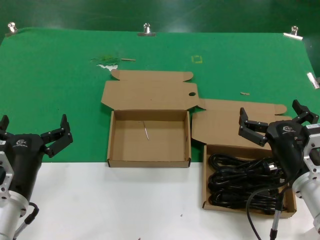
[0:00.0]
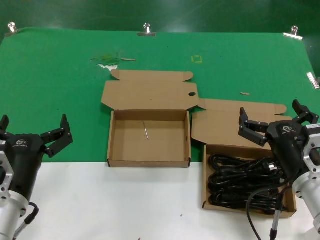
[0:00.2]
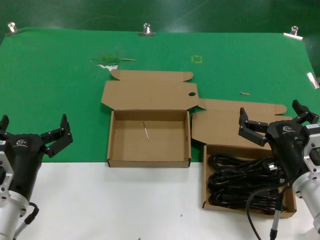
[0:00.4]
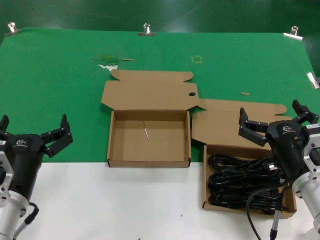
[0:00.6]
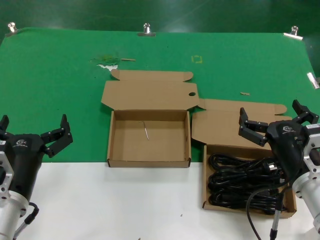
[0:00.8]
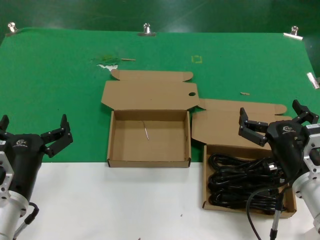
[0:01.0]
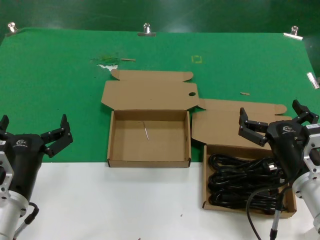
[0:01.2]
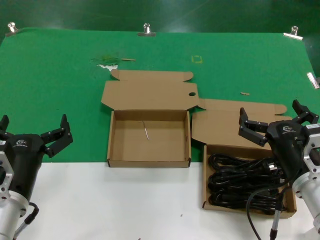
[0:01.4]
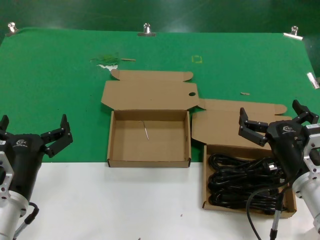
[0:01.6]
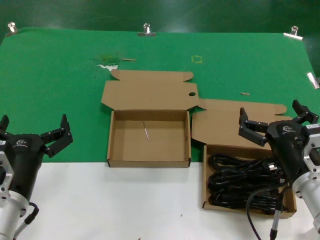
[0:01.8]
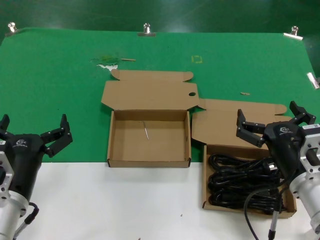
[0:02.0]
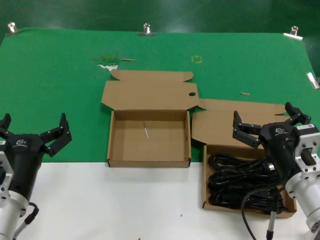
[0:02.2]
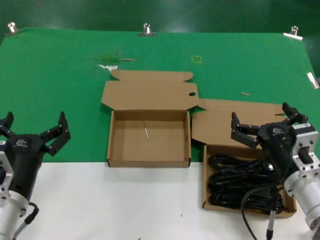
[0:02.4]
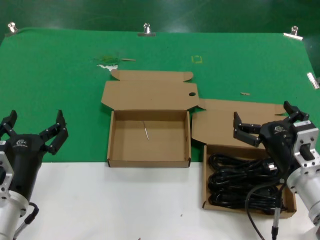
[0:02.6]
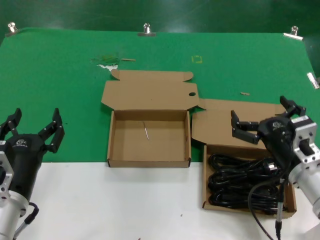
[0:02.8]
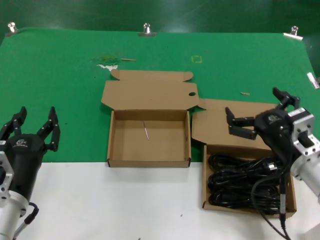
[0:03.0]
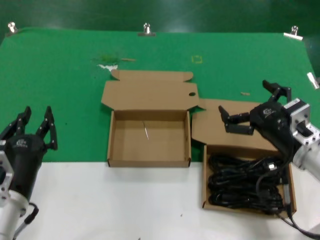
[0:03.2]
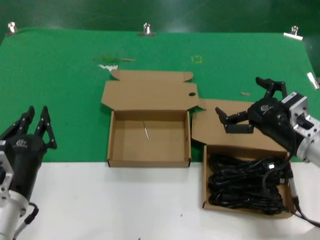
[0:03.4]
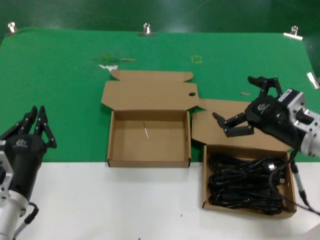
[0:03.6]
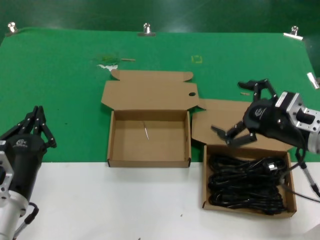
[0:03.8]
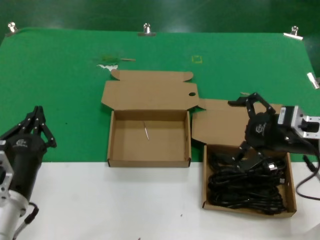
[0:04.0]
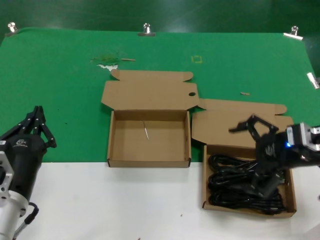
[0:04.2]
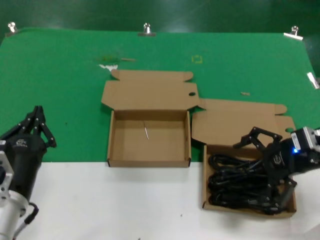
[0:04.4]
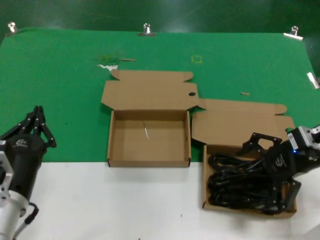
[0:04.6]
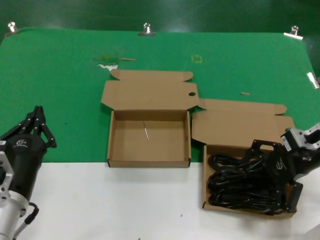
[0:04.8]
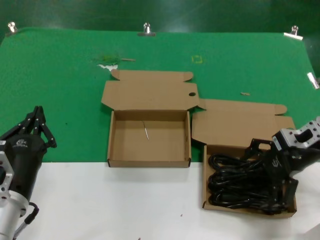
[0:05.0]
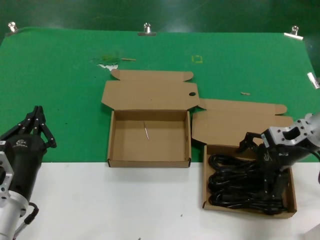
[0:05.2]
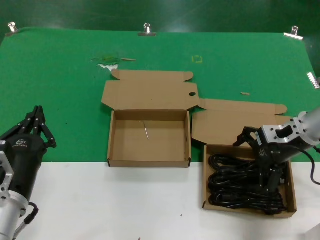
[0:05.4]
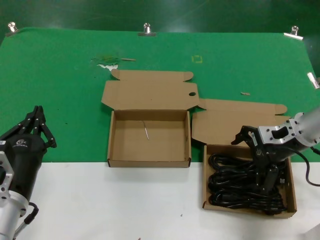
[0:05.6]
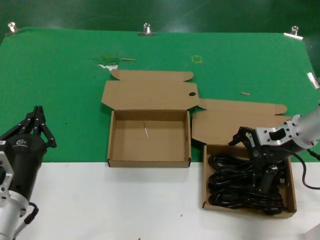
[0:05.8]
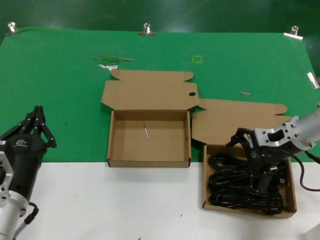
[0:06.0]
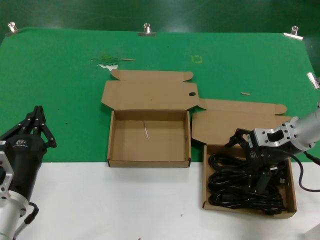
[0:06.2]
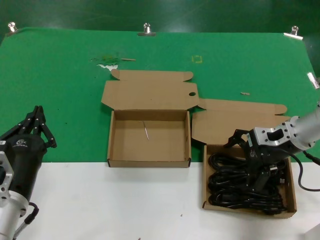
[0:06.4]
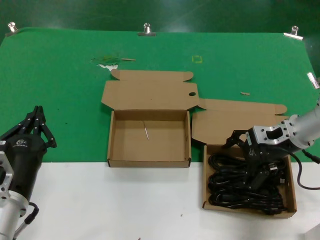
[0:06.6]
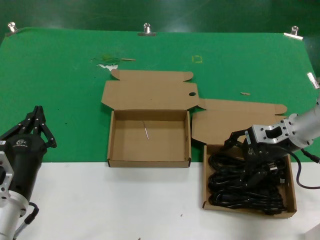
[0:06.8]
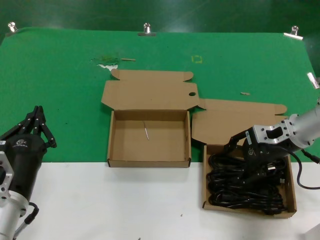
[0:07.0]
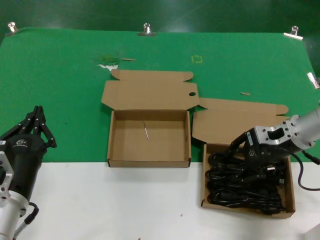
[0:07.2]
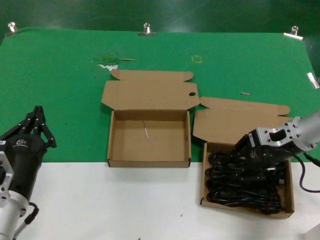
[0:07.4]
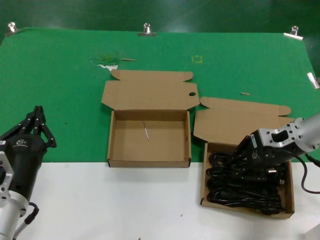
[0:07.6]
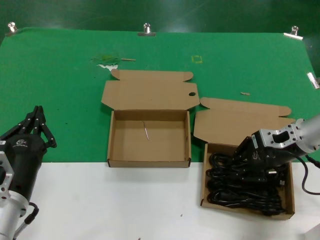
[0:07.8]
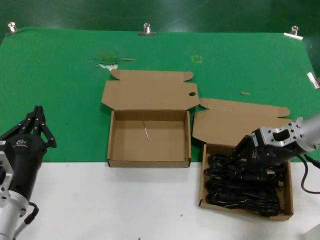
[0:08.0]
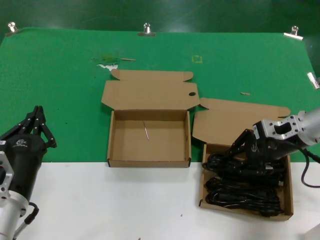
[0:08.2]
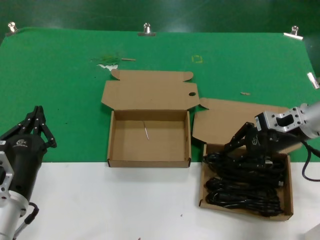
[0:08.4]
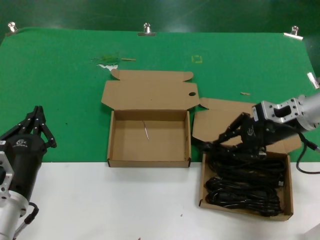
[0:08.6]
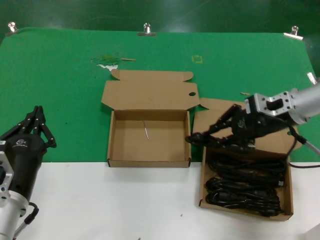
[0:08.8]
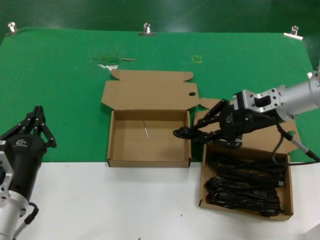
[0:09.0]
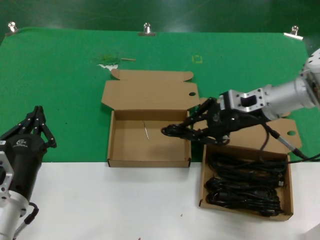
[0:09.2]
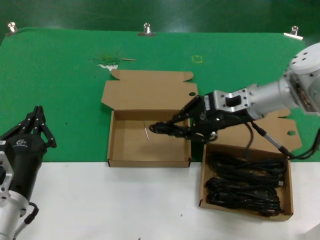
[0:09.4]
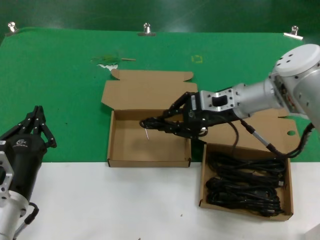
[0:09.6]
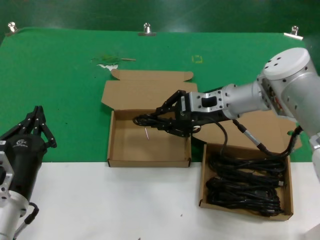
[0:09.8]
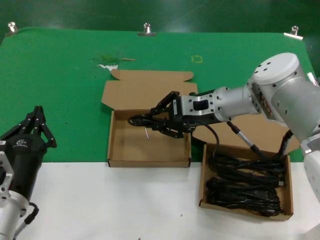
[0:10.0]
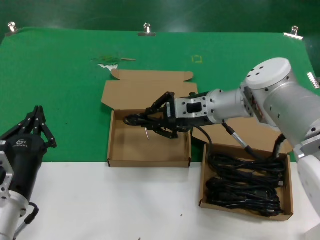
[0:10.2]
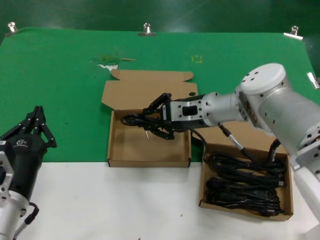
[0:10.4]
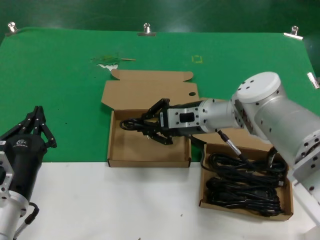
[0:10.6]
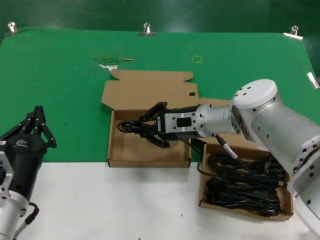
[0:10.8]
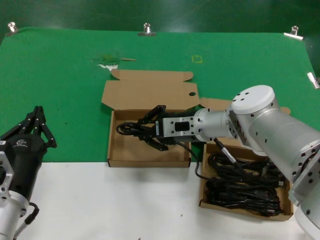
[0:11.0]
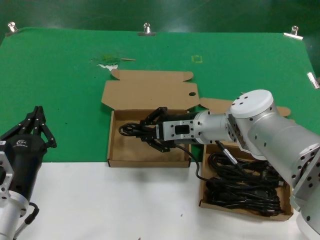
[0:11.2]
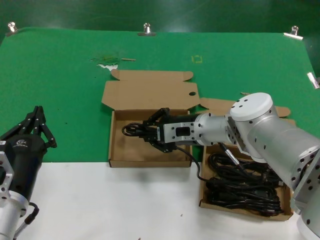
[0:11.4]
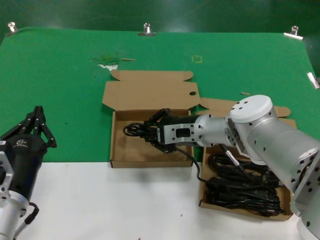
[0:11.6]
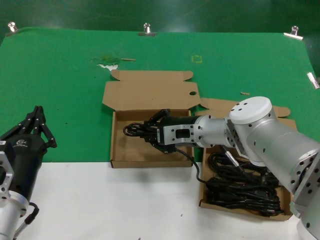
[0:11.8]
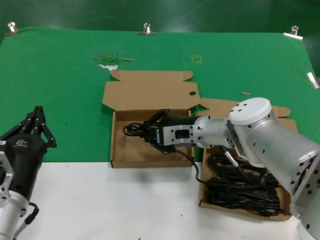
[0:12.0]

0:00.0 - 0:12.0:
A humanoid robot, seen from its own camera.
Task of the whole recording: take the parts from the box containing them and put them into an empty box.
Step, 0:00.0 - 0:07.6: Grasp the data cable.
0:00.0 - 0:01.6: Both hands stay about where they are.
0:01.6 - 0:03.0: The hands stay close to where they were, moving slightly.
0:03.0 - 0:04.4: The right hand is displaced upward, to the right and forward by about 15 cm.
0:04.4 - 0:06.0: The right hand heads forward, covering approximately 10 cm.
0:06.0 - 0:07.6: Both hands stay put.
0:07.6 - 0:09.0: The right hand goes approximately 5 cm upward.
0:09.0 - 0:10.4: The right hand travels to the left by about 15 cm.
0:10.4 - 0:12.0: The right hand shifts roughly 5 cm downward.

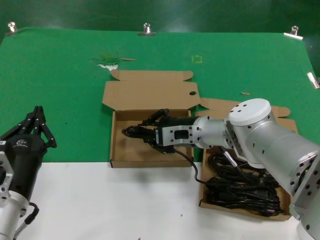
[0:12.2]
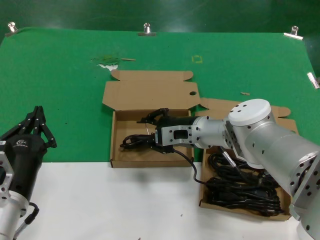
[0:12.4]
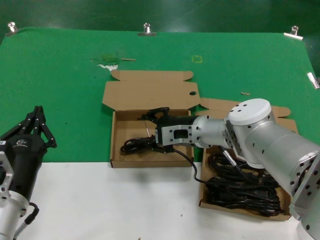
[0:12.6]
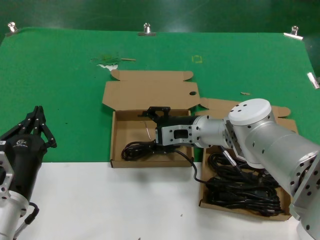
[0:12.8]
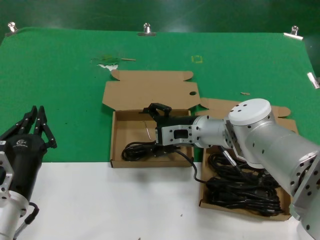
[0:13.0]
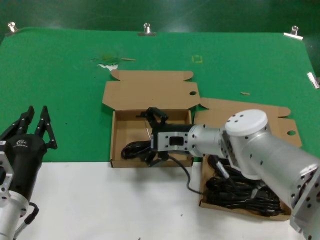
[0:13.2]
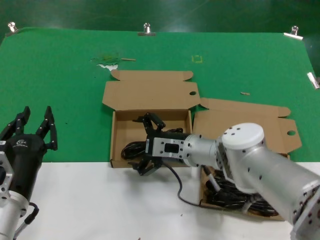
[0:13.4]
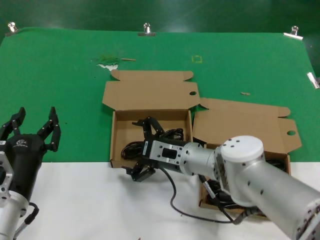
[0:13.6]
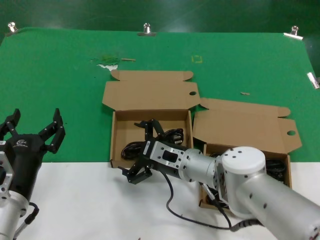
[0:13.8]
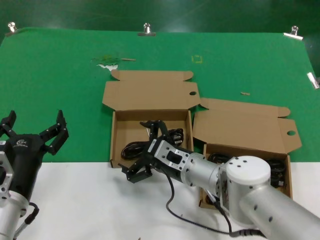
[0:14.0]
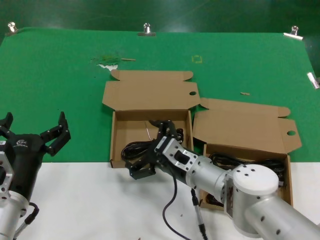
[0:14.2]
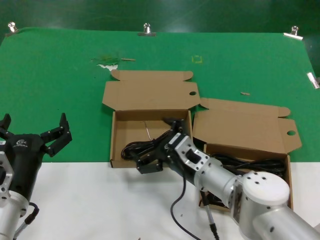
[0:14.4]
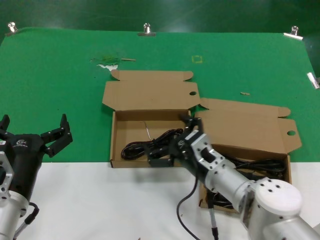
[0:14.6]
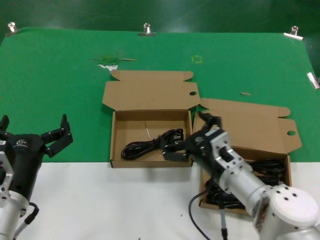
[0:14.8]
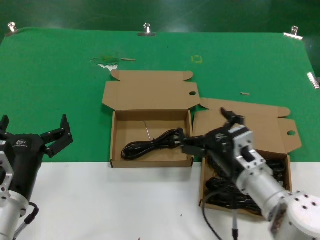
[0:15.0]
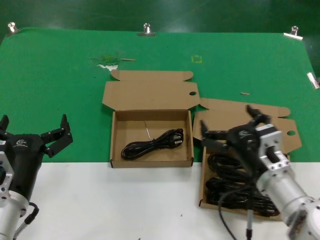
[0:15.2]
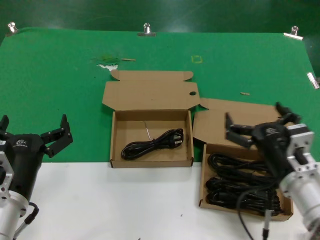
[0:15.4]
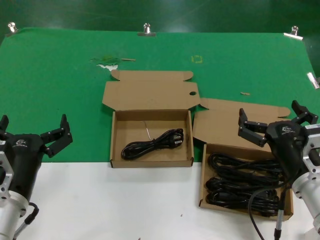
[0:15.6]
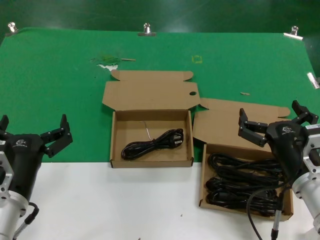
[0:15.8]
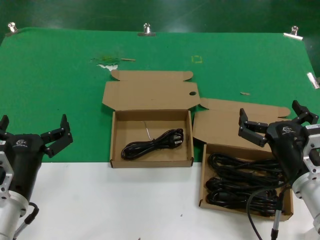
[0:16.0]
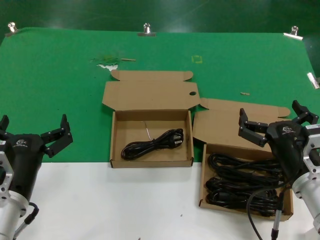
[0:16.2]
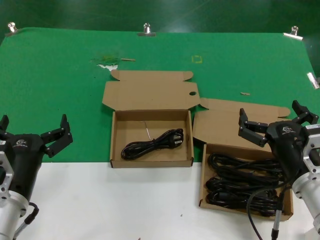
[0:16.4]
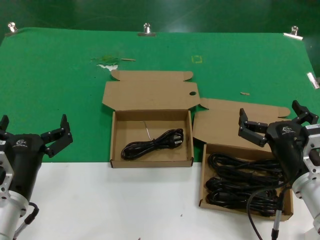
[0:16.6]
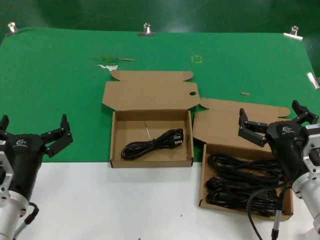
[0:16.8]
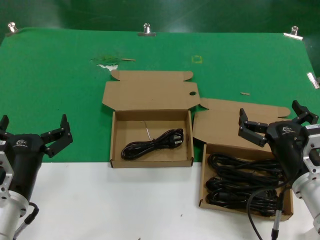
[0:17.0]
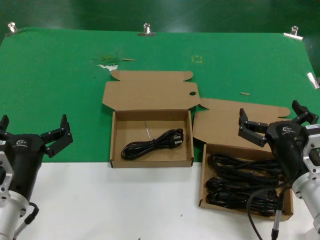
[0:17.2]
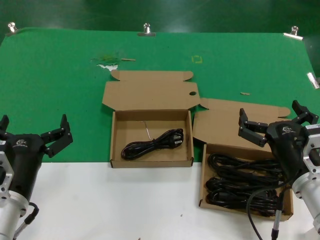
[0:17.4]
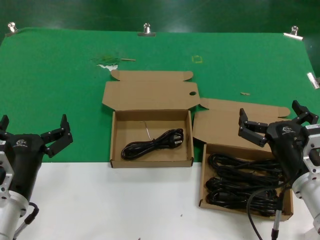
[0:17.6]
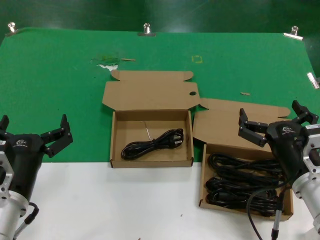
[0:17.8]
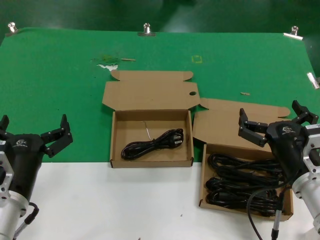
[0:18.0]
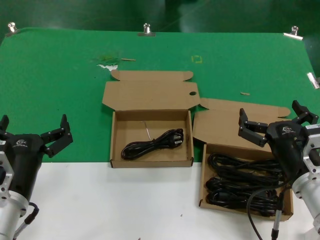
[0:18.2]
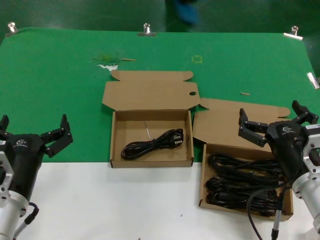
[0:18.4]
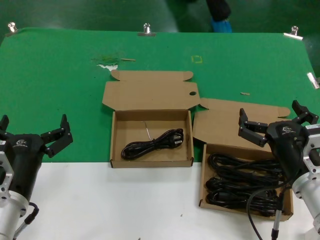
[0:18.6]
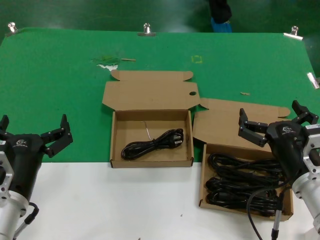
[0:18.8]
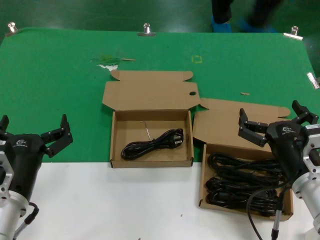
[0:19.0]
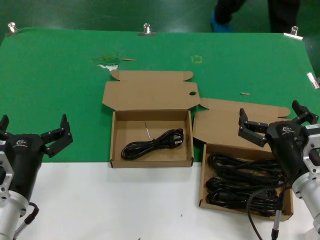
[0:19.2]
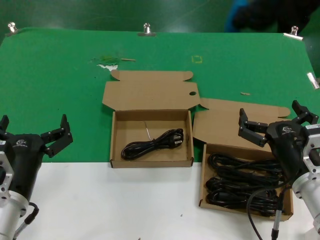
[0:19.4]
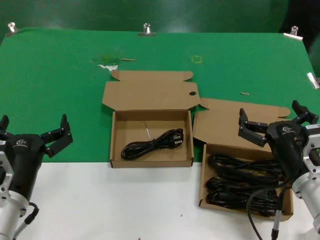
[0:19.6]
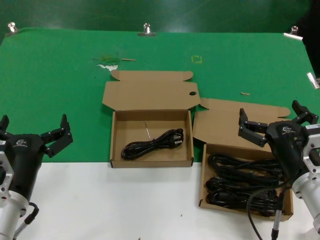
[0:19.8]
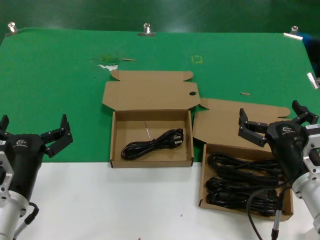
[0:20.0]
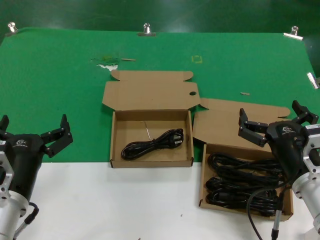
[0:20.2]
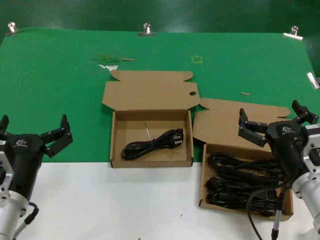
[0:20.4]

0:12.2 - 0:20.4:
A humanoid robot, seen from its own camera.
Task of the whole recording: take the parts from the box containing them and put them into an empty box.
0:12.2 - 0:13.8: The right hand travels backward and downward by some 10 cm.
0:13.8 - 0:15.4: The right hand goes approximately 20 cm to the right and backward.
0:15.4 - 0:17.2: The hands move only a little.
0:17.2 - 0:20.4: Both hands stay about where they are.

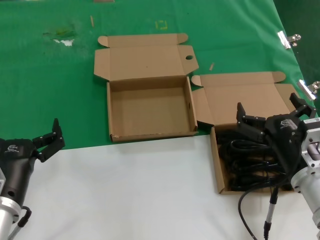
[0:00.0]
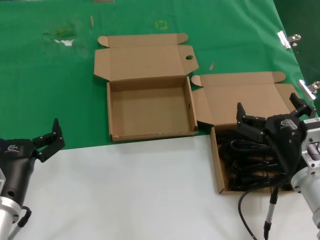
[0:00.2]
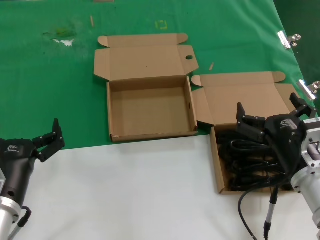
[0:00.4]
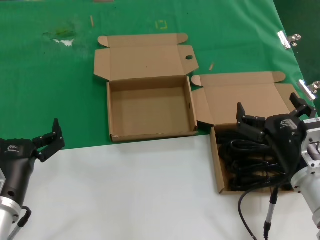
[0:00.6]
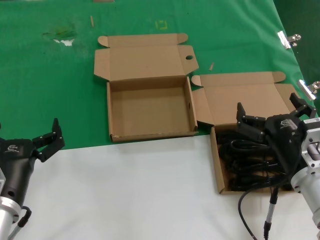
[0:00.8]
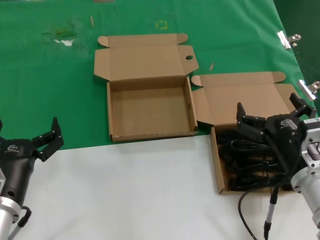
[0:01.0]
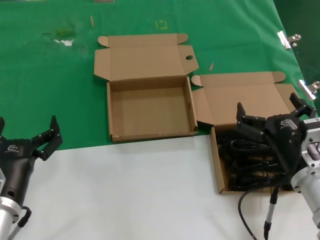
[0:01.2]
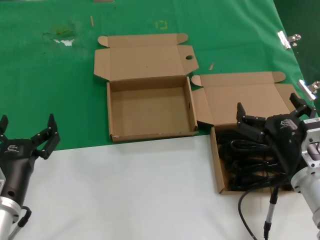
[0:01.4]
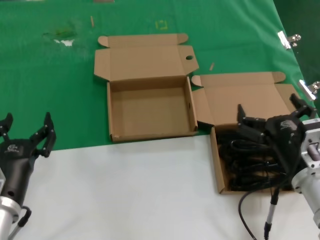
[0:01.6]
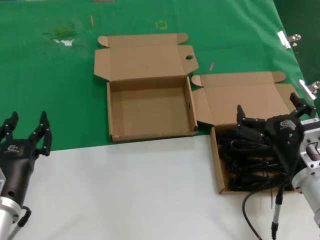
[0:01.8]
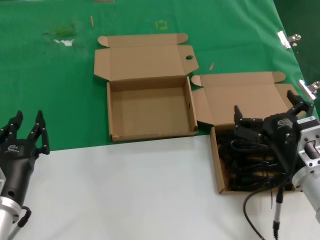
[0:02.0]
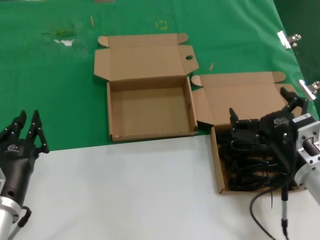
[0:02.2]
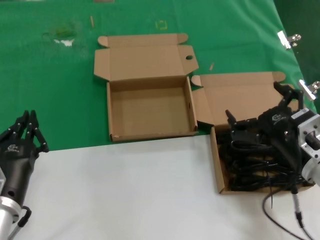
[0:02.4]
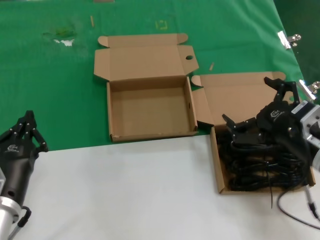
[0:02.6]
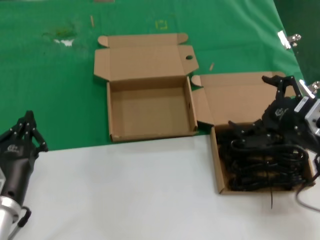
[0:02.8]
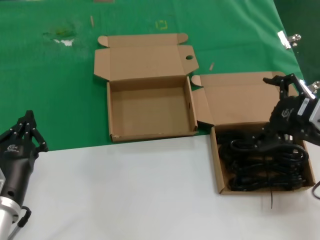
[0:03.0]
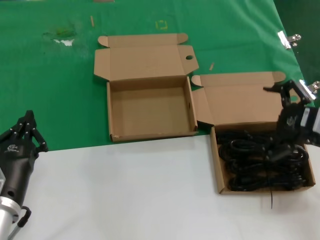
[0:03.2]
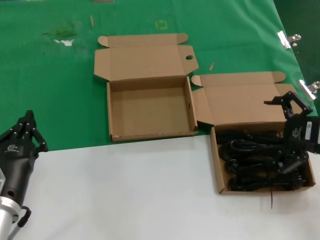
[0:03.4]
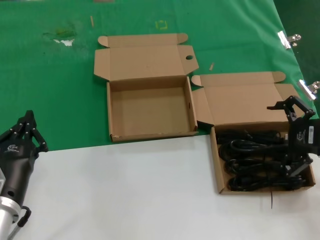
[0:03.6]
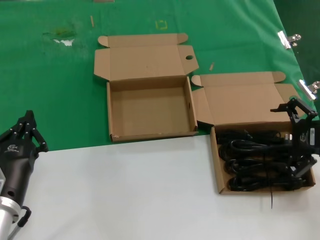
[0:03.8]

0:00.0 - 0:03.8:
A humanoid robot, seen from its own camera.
Task of the whole recording: take the parts from the box containing them and put them into an empty box.
0:00.0 - 0:01.2: Neither hand changes place.
0:01.2 - 0:02.6: The right hand goes approximately 5 cm upward.
0:02.6 - 0:03.8: The right hand goes roughly 10 cm to the right and upward.
